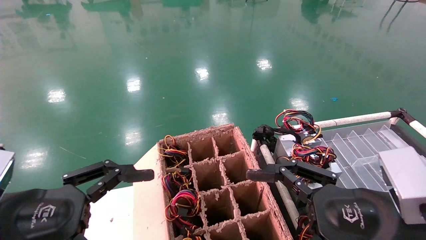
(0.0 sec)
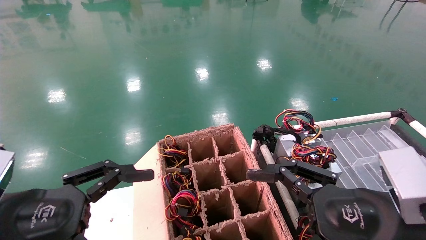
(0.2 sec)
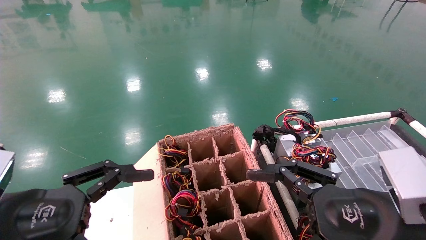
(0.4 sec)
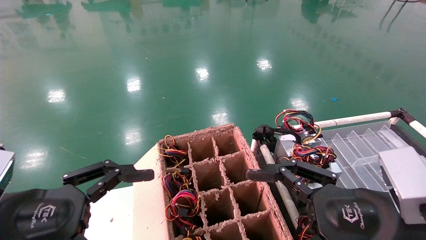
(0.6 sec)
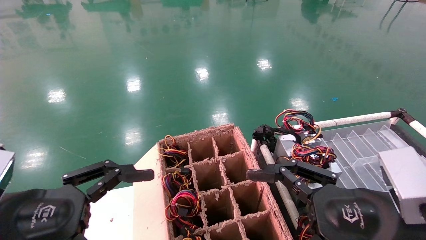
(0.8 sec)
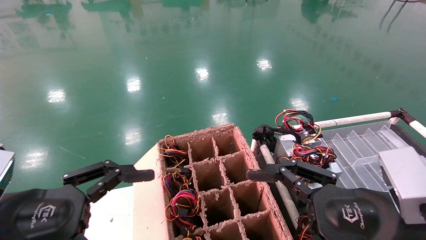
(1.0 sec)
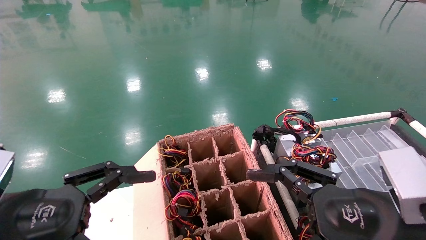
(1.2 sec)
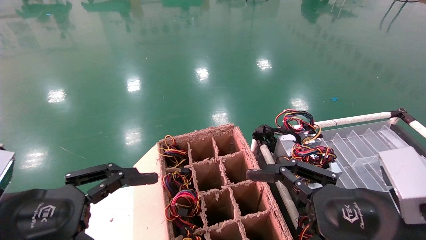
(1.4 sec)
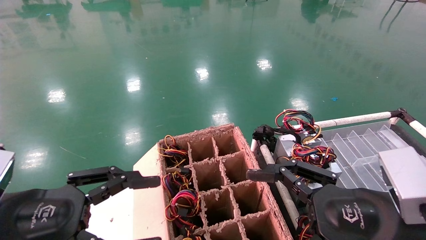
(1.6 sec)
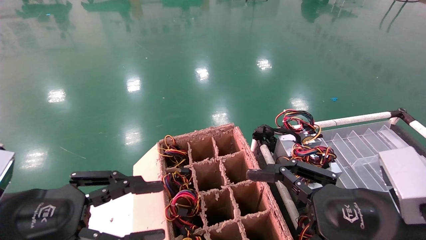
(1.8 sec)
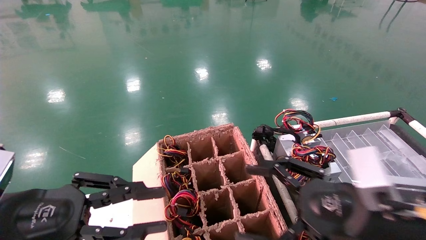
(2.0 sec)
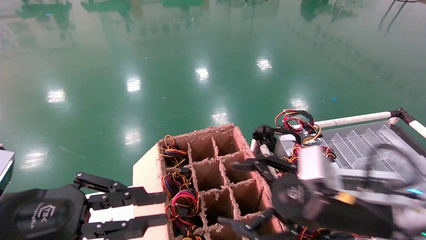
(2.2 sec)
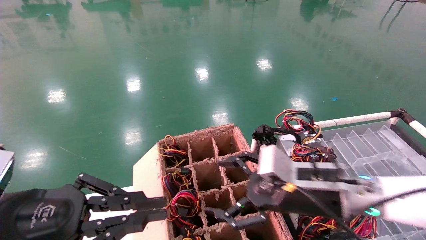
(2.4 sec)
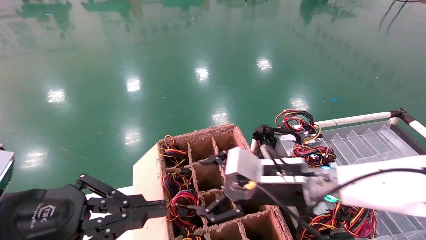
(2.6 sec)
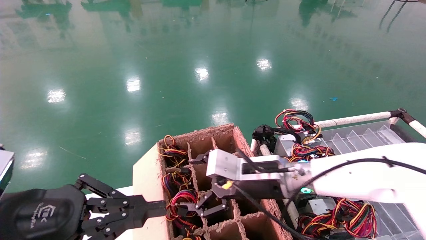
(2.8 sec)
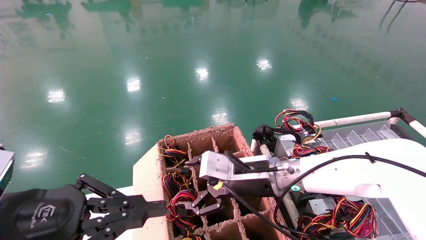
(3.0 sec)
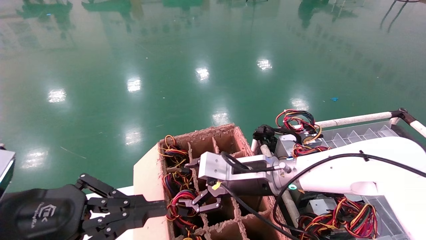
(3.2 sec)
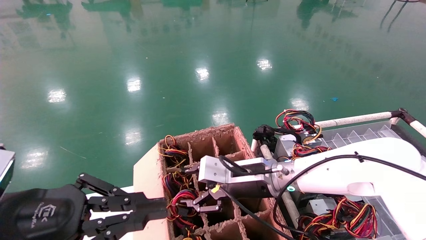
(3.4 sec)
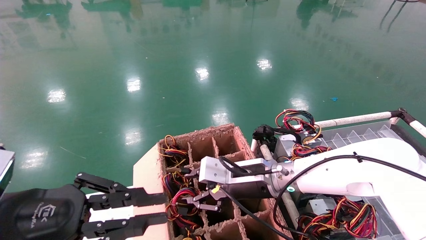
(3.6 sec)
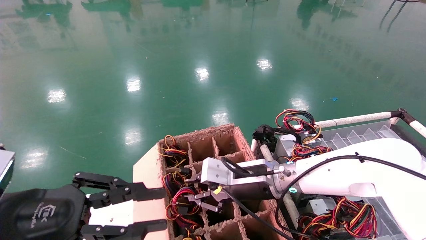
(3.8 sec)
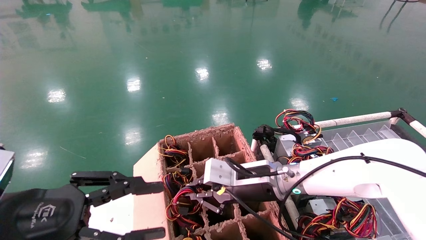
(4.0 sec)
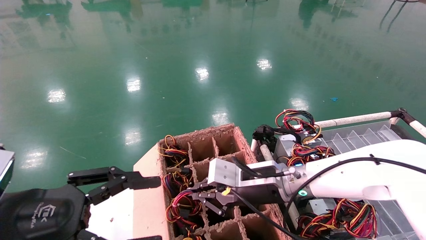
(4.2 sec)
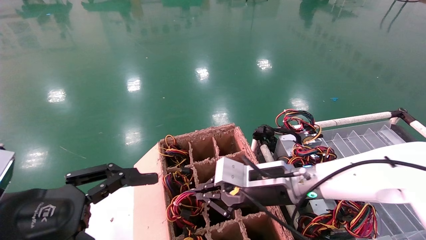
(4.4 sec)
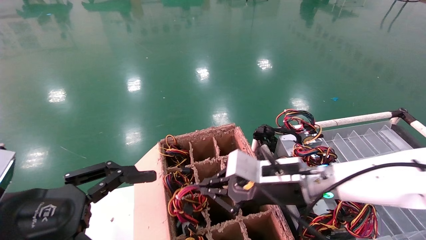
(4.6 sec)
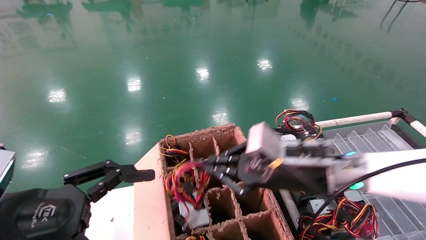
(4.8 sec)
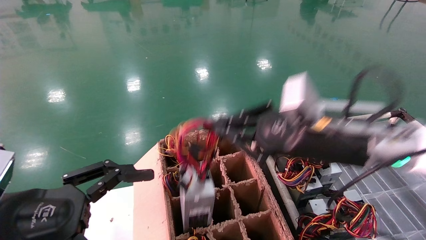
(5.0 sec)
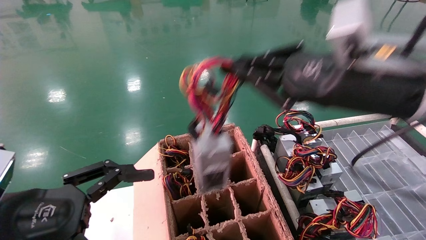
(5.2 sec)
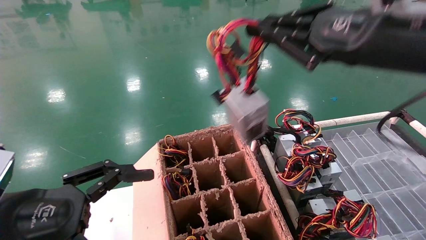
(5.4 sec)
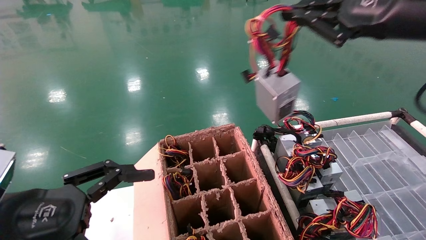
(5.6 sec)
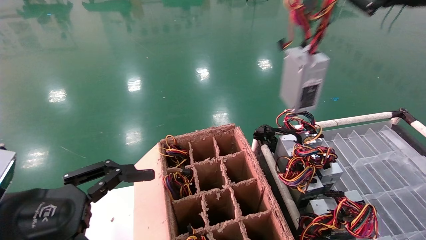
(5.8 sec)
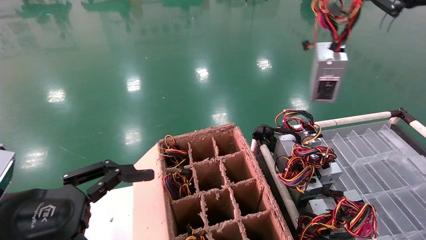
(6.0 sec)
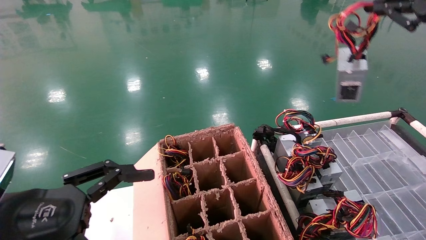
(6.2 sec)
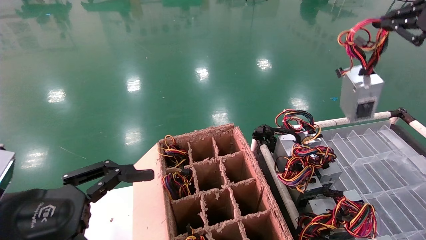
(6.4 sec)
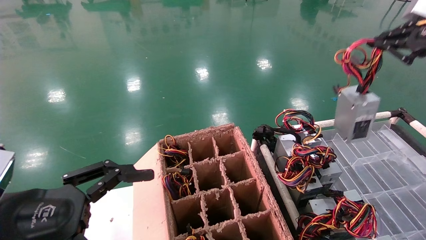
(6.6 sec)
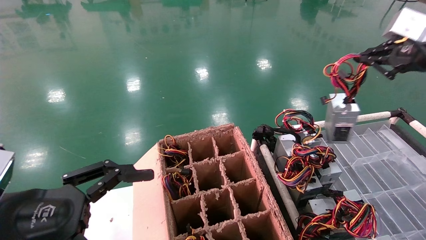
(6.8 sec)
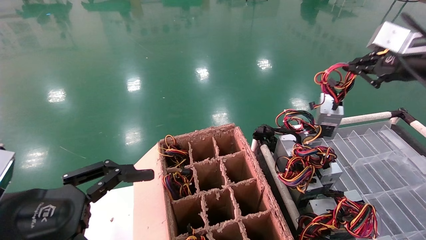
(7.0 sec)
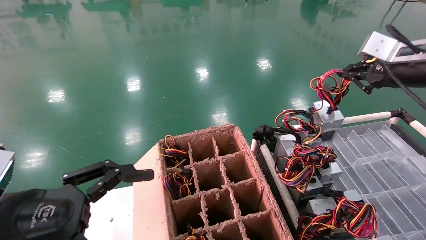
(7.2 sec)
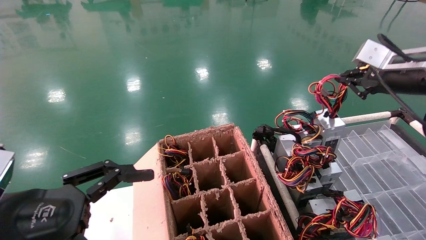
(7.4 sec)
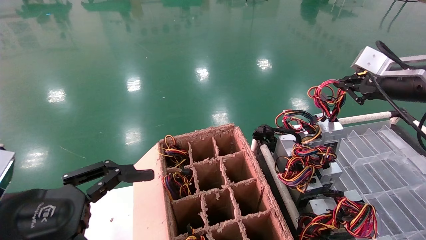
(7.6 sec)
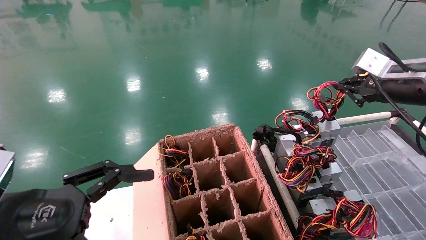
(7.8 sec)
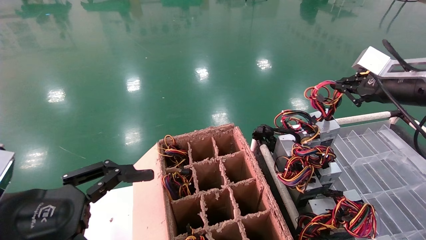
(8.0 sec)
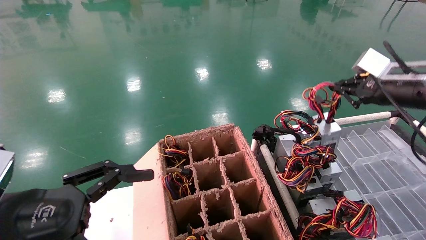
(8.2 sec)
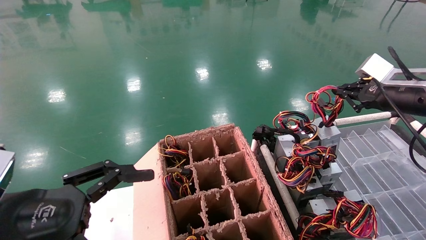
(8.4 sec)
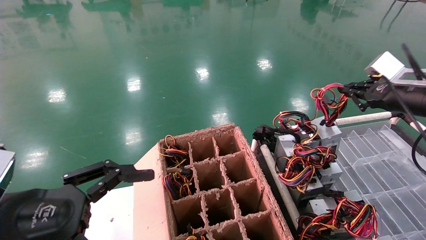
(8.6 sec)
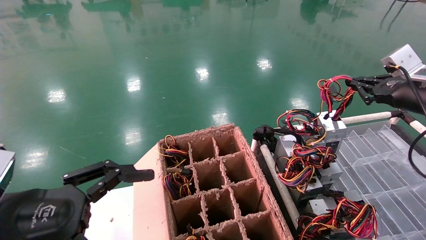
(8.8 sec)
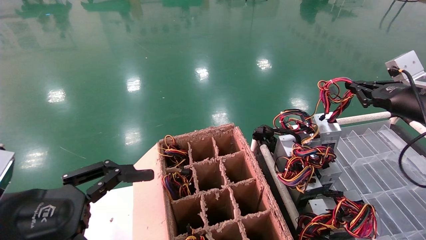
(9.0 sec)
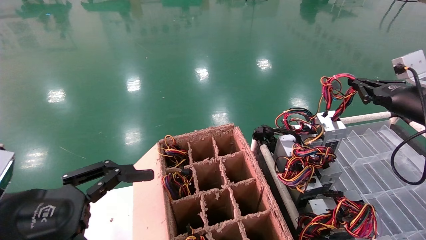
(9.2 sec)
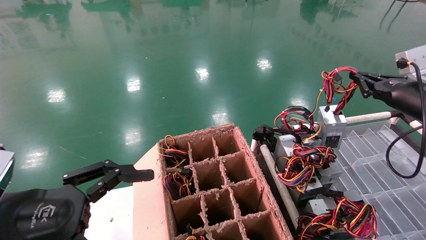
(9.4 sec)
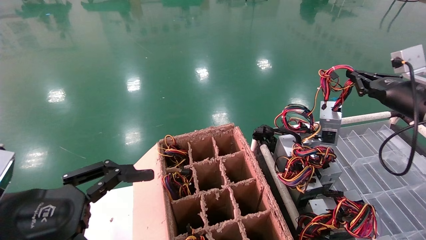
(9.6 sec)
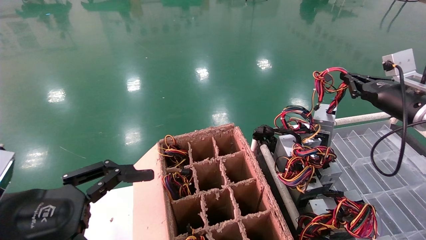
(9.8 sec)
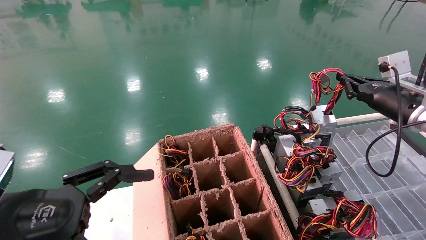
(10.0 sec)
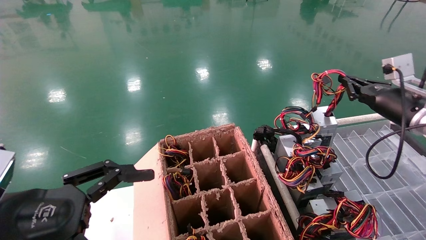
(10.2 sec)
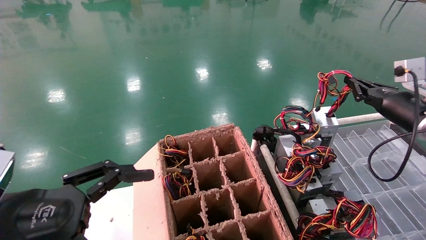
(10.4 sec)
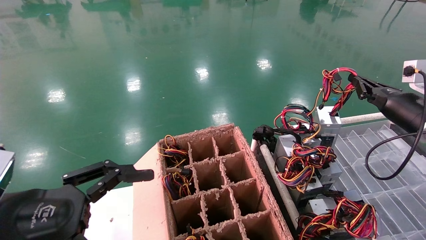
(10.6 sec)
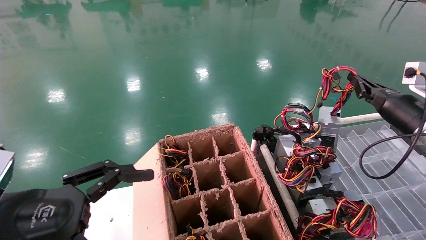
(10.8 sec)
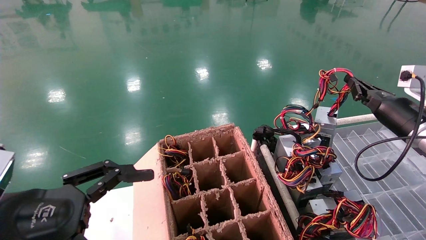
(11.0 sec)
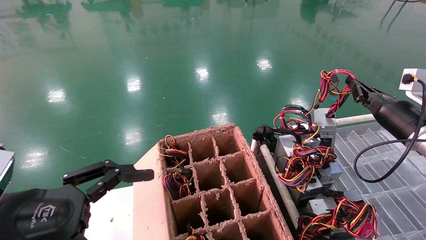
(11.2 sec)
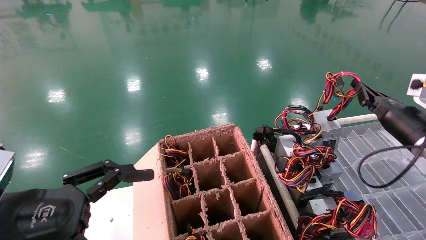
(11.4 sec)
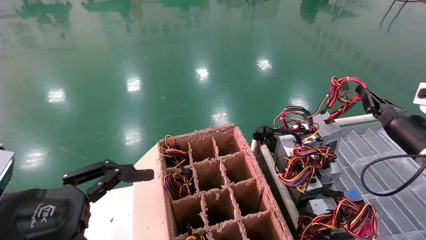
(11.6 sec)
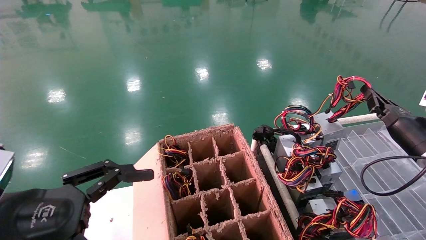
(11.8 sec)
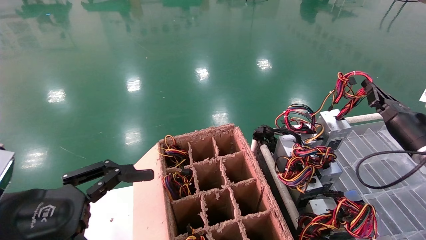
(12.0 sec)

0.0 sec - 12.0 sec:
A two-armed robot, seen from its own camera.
Step, 1.4 sec - 4.2 sec: Grab and lift the power supply from the large box.
0.0 sec - 1.6 sec: Both grippers stay put.
1.6 sec - 3.0 sec: The left gripper closes; the right gripper travels forward and to the left by roughly 25 cm.
3.0 sec - 4.4 sec: The left gripper opens up, while the right gripper closes.
4.4 sec - 6.0 sec: The right gripper is displaced upward and to the right by roughly 40 cm.
6.0 sec - 7.6 sec: The right gripper is displaced downward and forward by roughly 15 cm.
7.6 sec - 9.0 sec: The right gripper heads downward, covering roughly 5 cm.
10.4 sec - 12.0 sec: The right gripper goes some 5 cm downward.

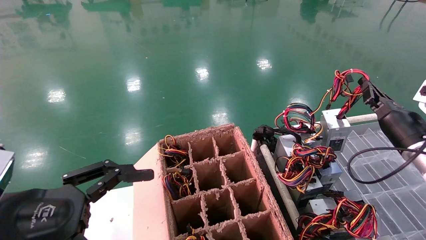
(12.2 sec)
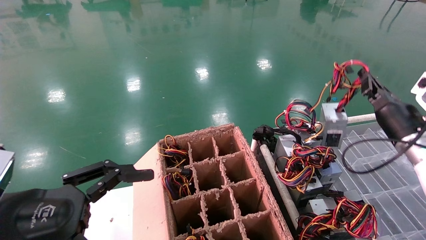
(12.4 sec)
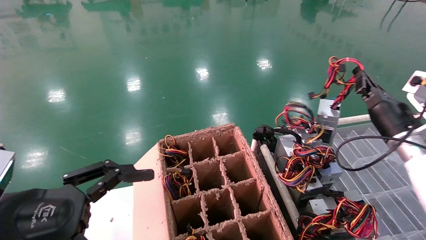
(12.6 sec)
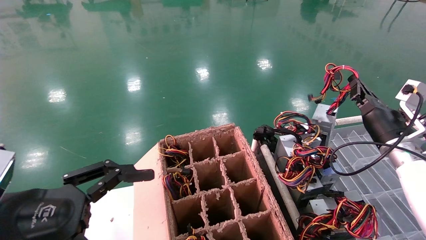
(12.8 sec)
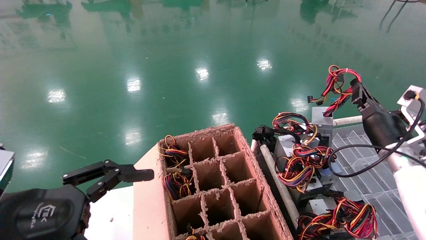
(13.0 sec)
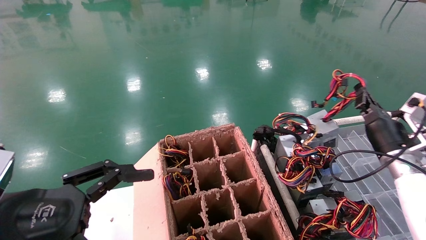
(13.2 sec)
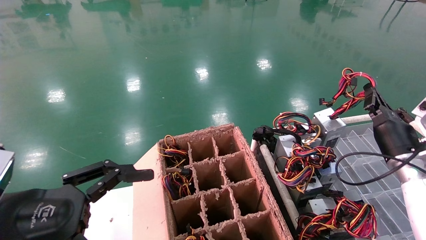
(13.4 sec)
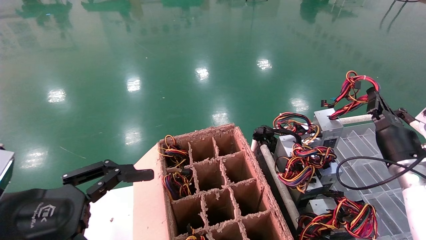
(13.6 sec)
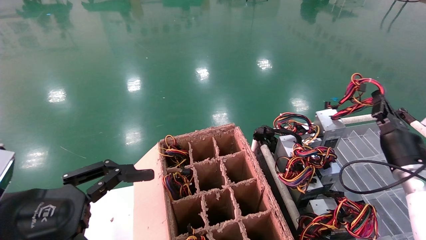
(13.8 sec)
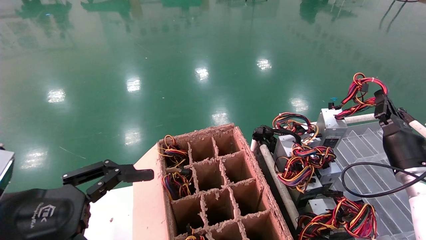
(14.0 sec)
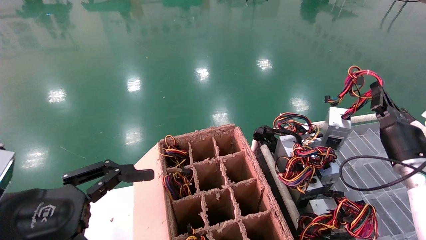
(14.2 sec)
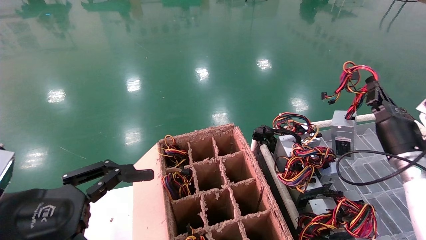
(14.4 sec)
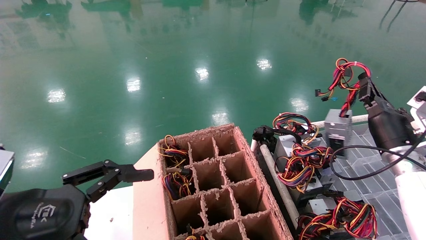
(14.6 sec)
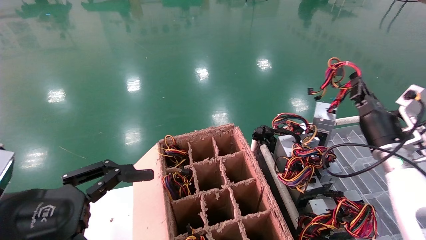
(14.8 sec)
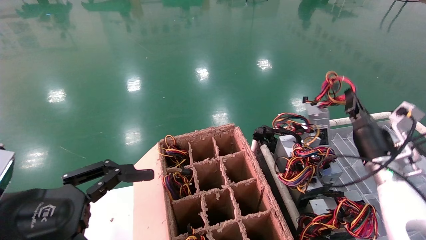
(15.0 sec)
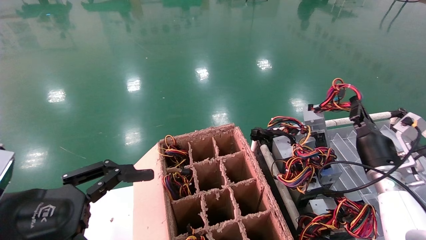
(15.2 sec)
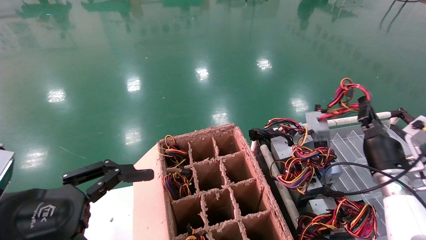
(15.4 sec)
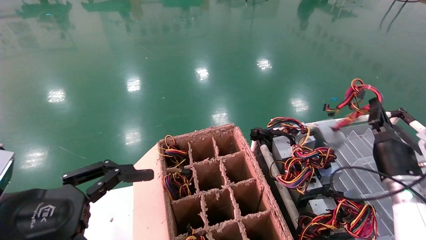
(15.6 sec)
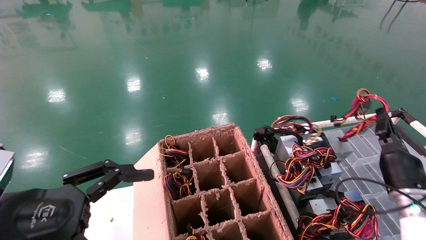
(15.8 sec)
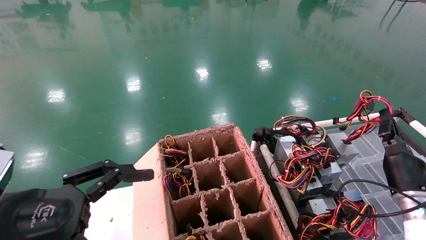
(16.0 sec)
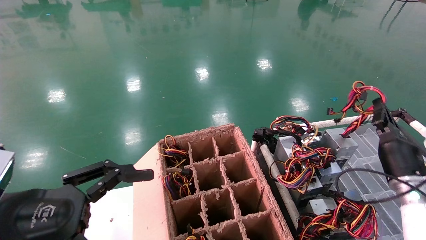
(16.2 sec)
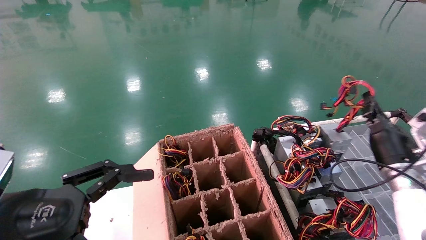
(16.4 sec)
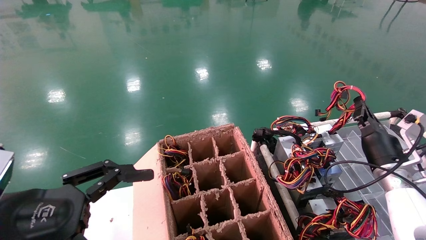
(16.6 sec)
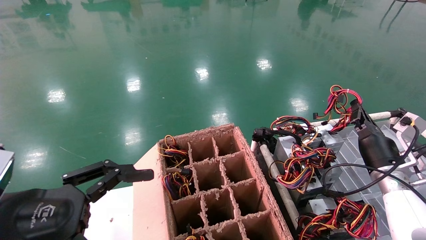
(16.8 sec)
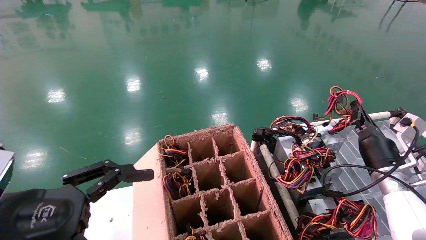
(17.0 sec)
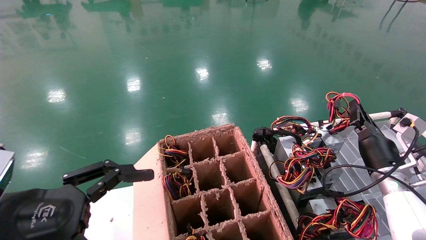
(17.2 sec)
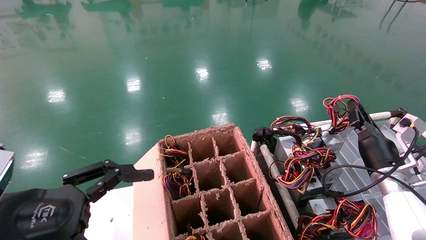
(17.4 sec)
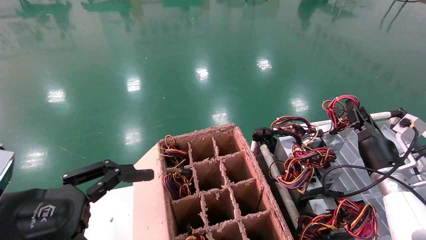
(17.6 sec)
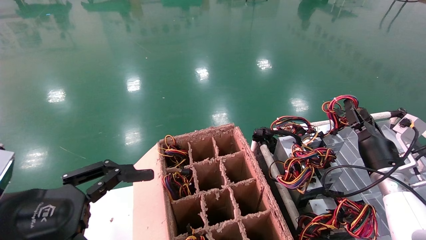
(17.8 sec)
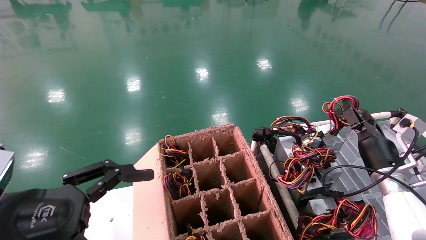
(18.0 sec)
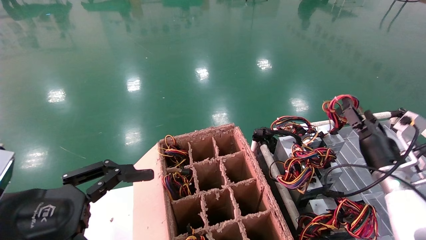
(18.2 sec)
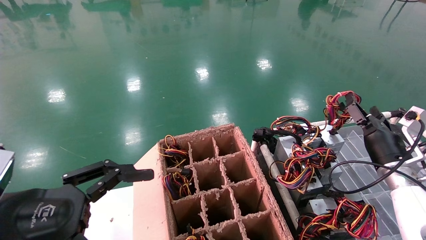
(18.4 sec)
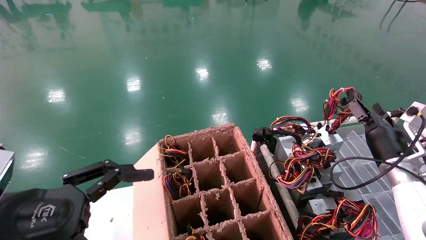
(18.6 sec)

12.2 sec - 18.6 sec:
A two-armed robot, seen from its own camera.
Step, 12.2 sec - 17.4 sec: Place the power supply on the operating table.
12.2 sec - 13.8 sec: The right gripper is displaced downward by roughly 5 cm.
13.8 sec - 17.0 sec: There are only small adjustments of the grippers.
17.0 sec - 18.6 sec: The right gripper opens its fingers.
